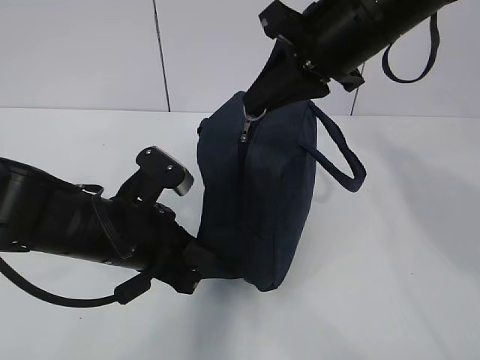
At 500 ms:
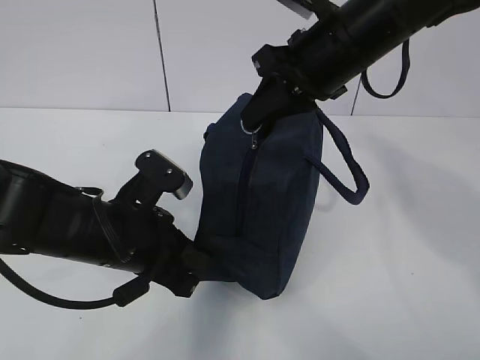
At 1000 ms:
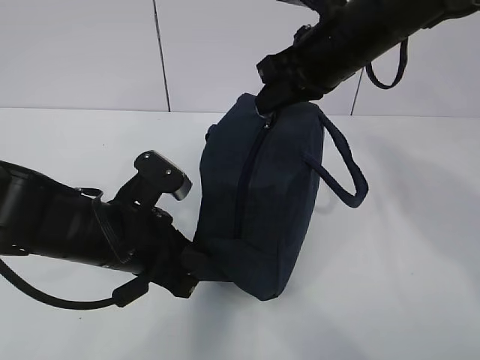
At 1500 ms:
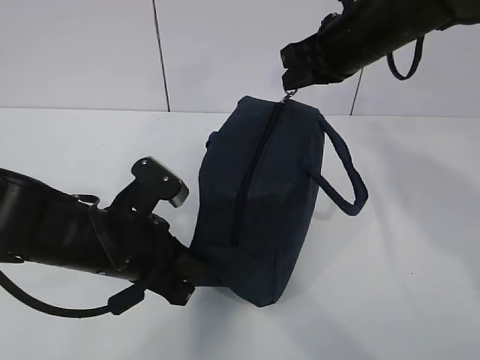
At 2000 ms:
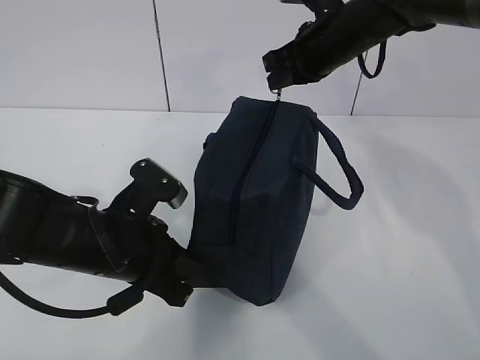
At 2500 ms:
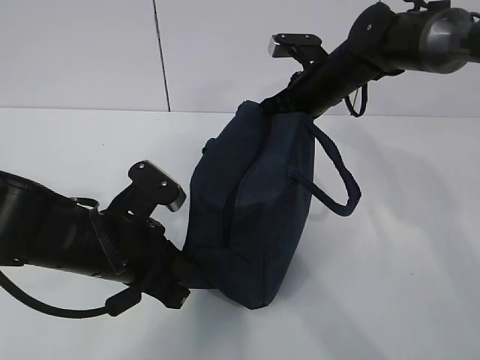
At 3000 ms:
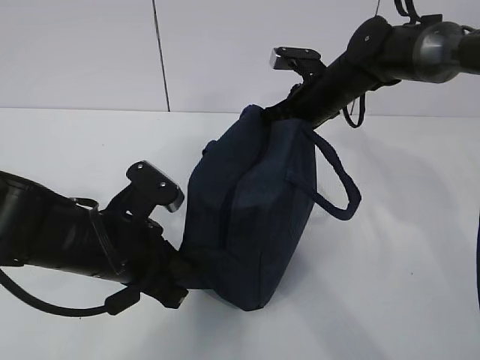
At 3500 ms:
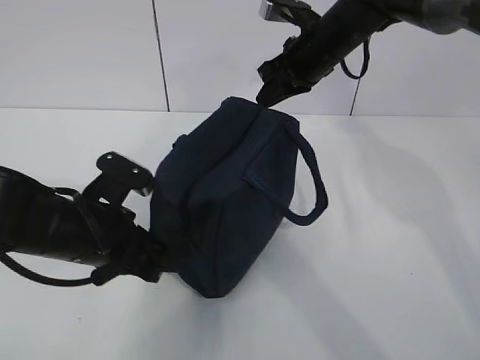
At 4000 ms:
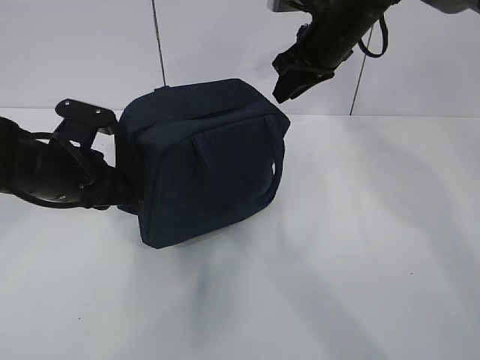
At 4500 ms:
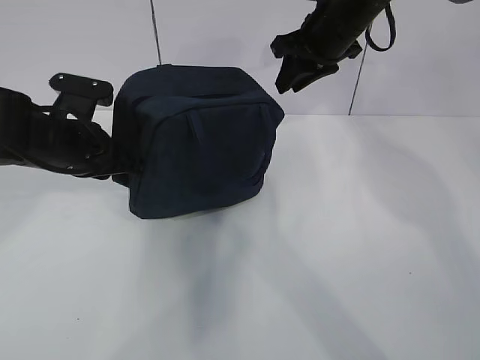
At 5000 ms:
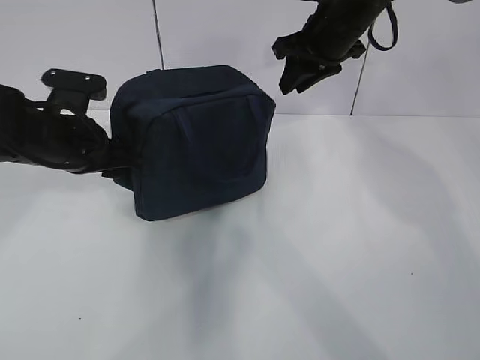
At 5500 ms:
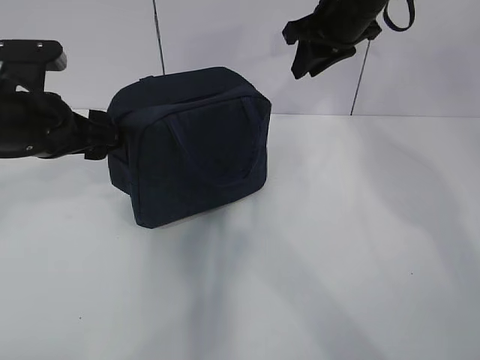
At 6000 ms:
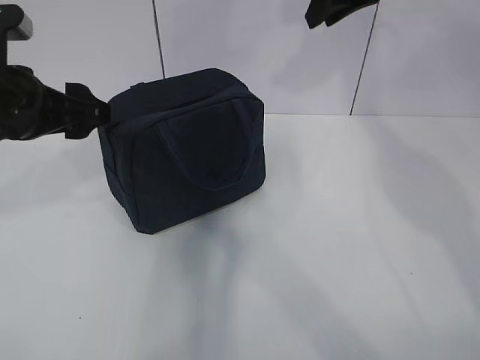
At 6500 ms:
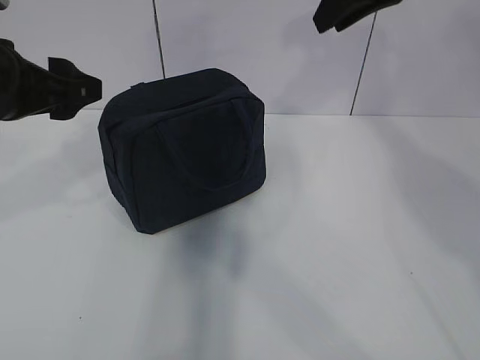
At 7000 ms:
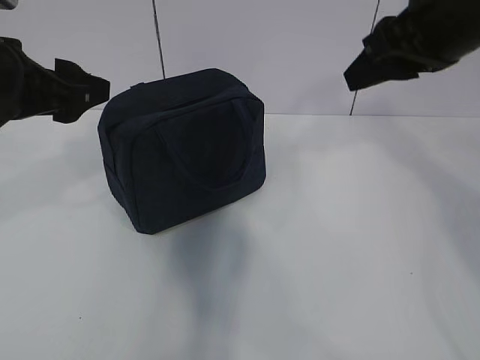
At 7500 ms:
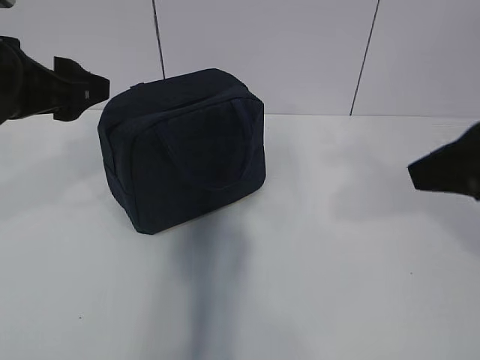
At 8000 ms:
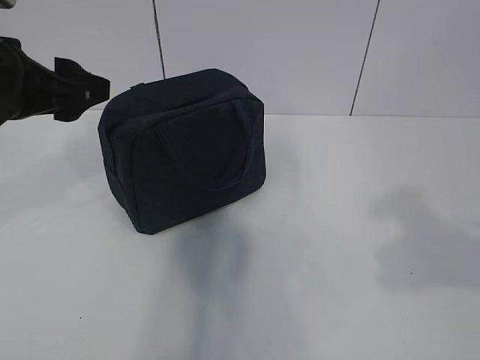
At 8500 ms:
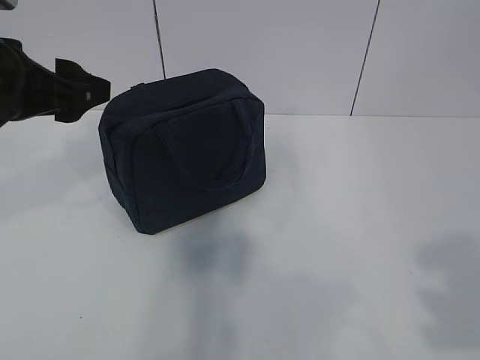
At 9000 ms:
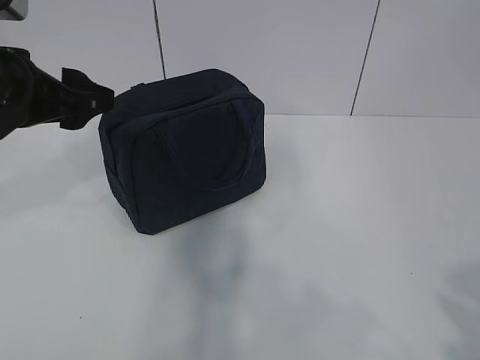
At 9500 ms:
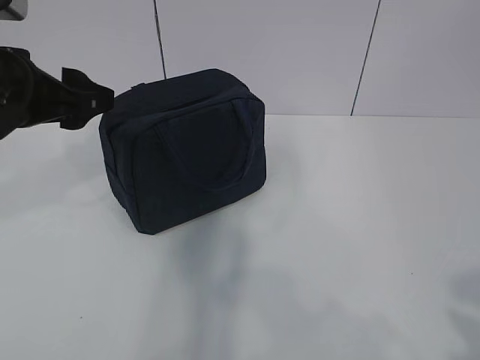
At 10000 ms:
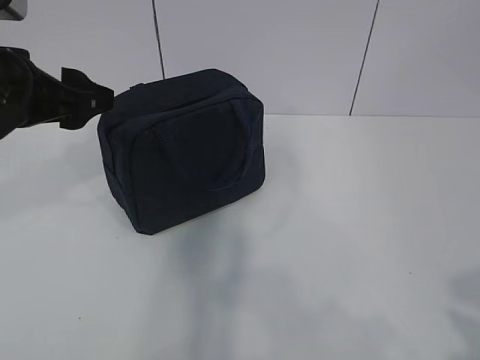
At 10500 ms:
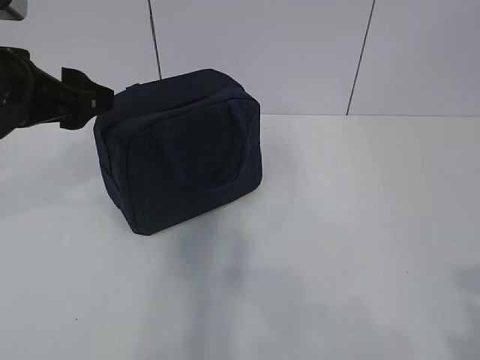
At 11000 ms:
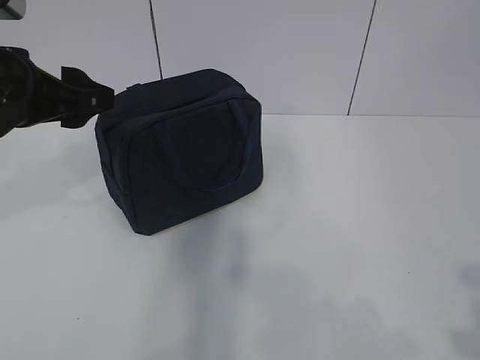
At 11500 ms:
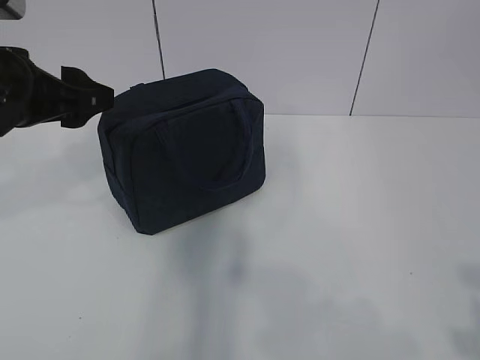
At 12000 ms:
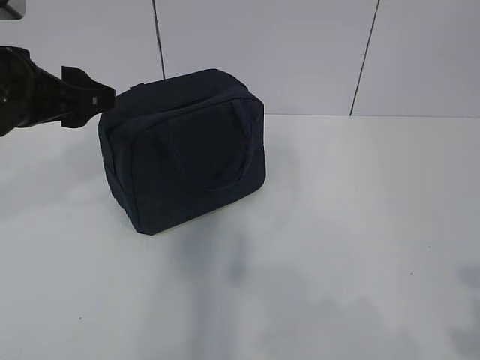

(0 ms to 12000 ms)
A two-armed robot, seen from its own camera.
Step, 0 ms - 5000 ms: zip up the zipper to close the bag.
0 ms - 2000 ms: The right gripper is displaced forward and downward by about 15 cm.
2000 ms - 4000 ms: The left gripper is displaced forward and to the left by roughly 10 cm; the right gripper reaches about 10 cm downward, then returns, and opens its fingers.
4000 ms - 6000 ms: Both grippers travel together upward, about 10 cm. The left gripper opens up.
6000 ms - 8000 ms: The right gripper heads backward, covering roughly 35 cm.

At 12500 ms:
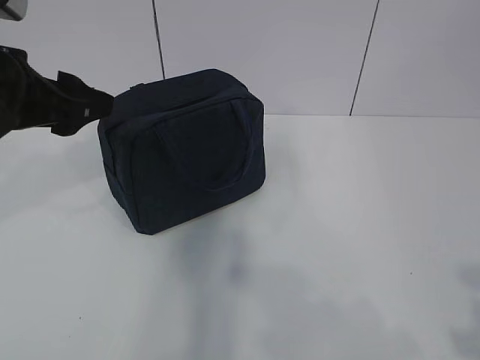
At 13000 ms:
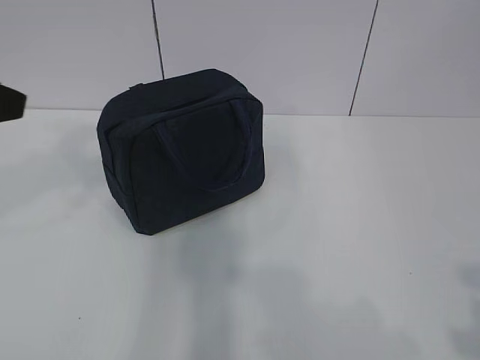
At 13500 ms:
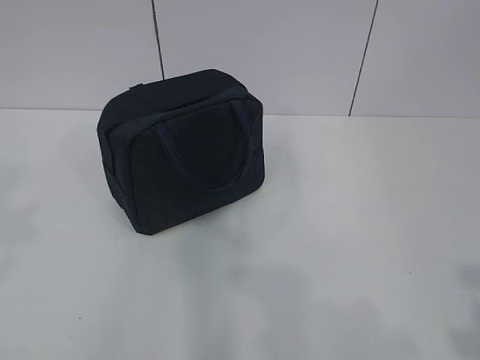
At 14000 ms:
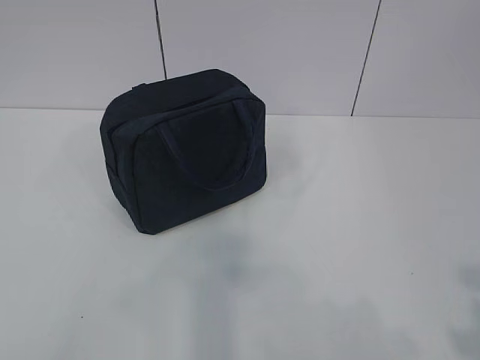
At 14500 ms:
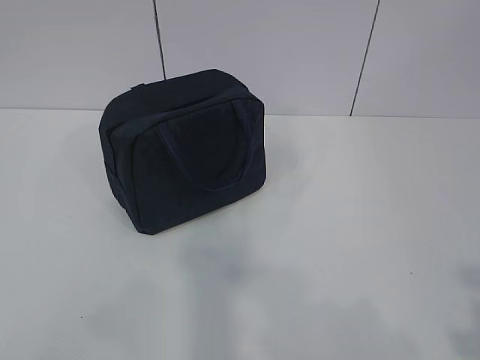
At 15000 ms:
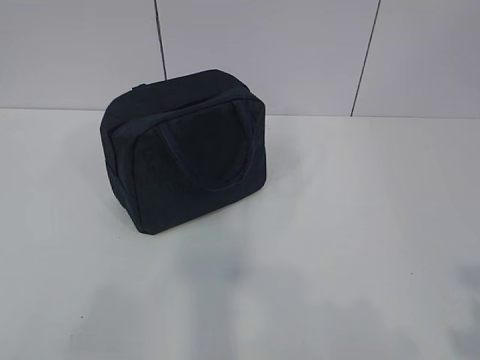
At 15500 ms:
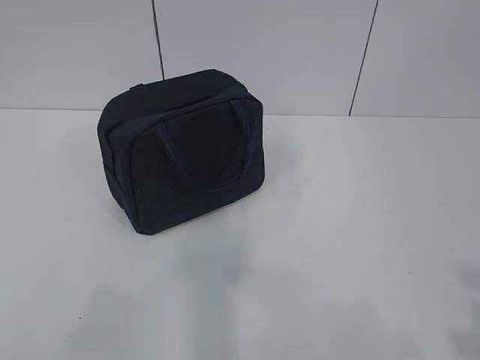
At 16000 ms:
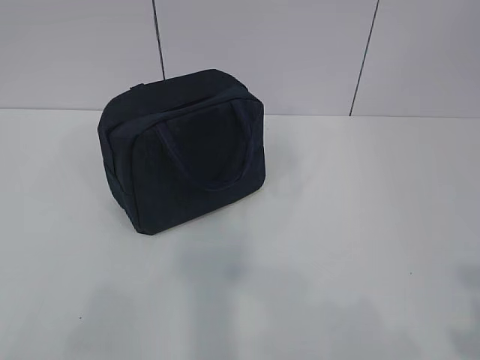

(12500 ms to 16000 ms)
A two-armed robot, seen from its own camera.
12500 ms - 14500 ms: The left gripper heads backward and to the left, covering some 30 cm.
